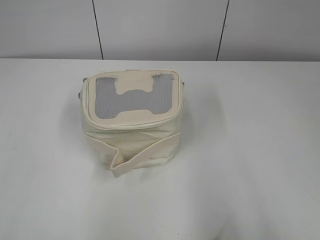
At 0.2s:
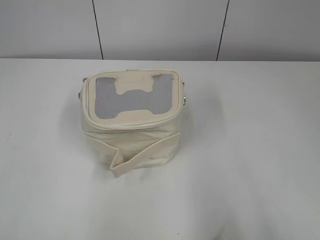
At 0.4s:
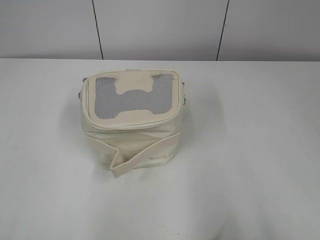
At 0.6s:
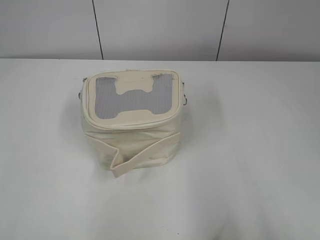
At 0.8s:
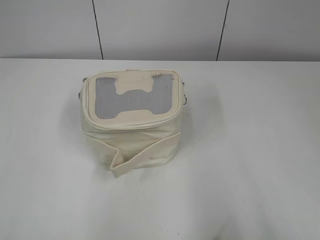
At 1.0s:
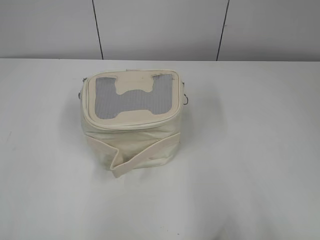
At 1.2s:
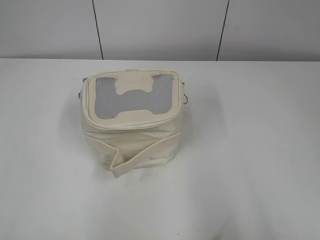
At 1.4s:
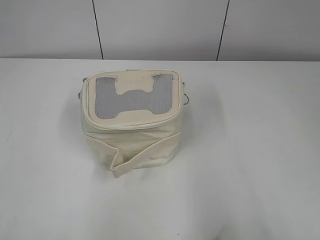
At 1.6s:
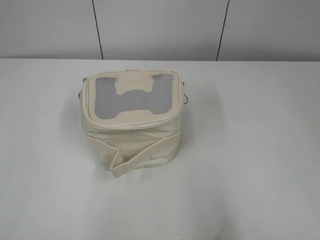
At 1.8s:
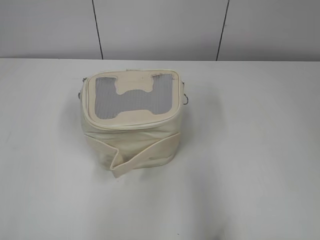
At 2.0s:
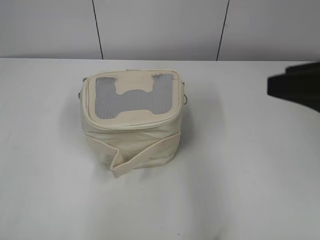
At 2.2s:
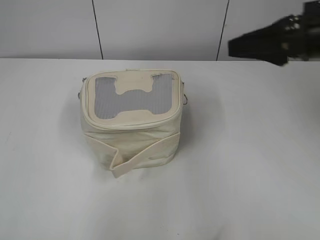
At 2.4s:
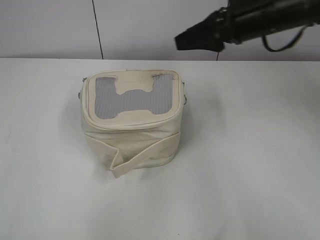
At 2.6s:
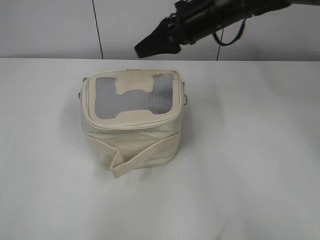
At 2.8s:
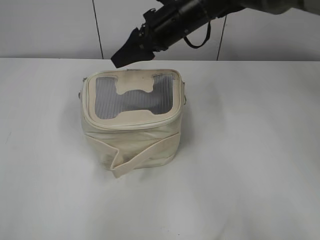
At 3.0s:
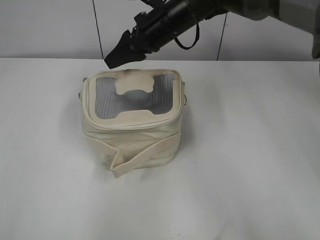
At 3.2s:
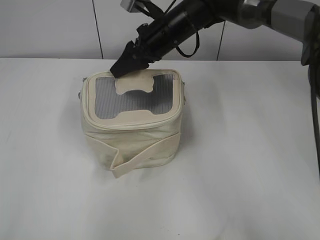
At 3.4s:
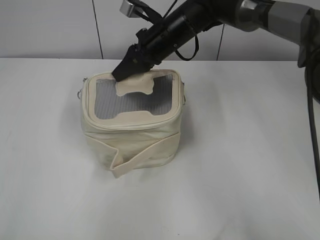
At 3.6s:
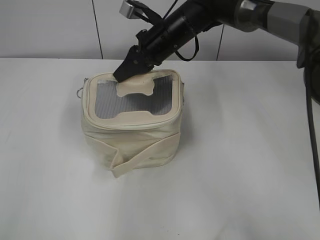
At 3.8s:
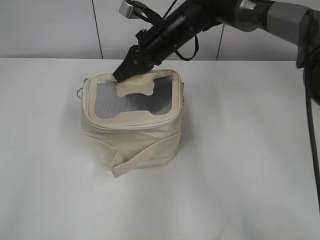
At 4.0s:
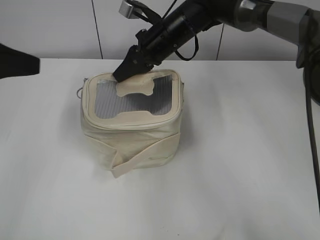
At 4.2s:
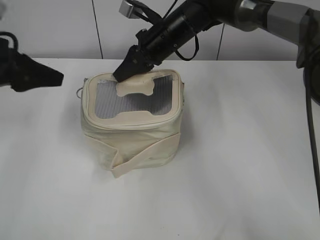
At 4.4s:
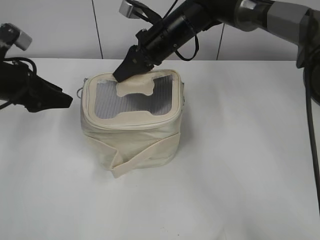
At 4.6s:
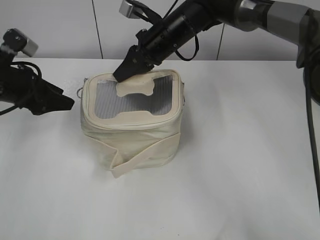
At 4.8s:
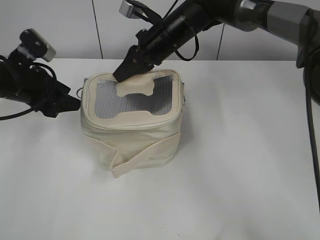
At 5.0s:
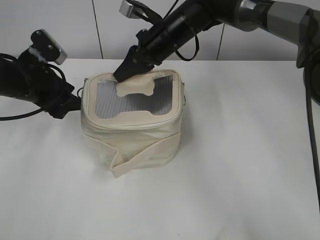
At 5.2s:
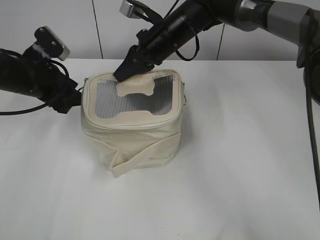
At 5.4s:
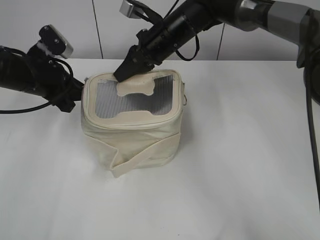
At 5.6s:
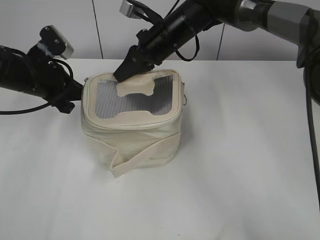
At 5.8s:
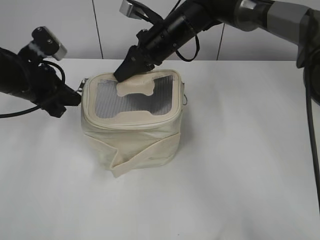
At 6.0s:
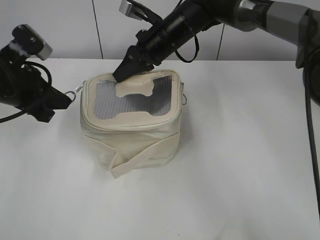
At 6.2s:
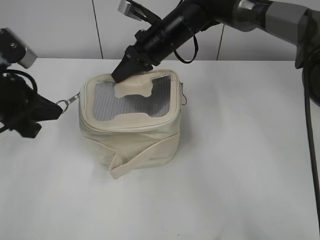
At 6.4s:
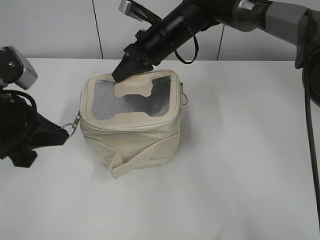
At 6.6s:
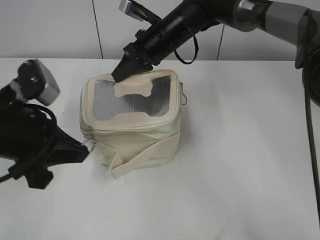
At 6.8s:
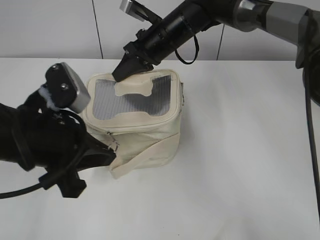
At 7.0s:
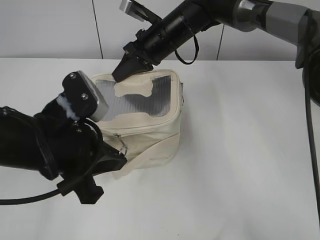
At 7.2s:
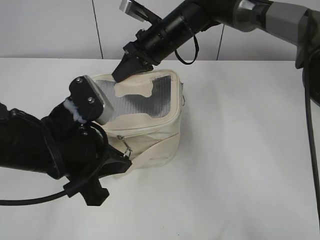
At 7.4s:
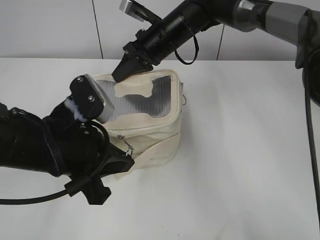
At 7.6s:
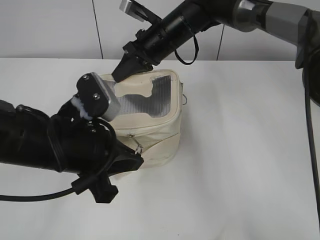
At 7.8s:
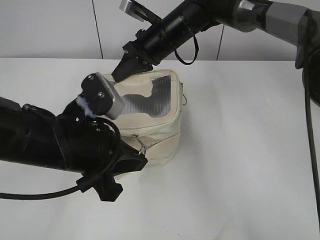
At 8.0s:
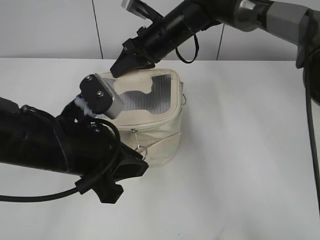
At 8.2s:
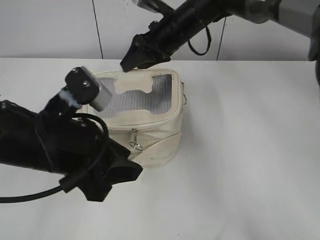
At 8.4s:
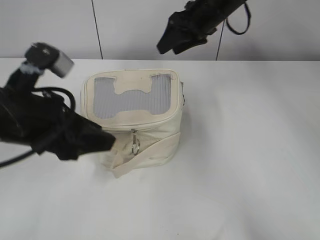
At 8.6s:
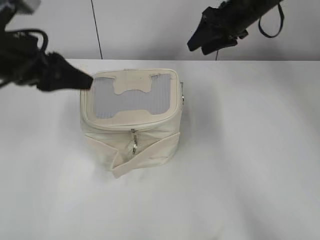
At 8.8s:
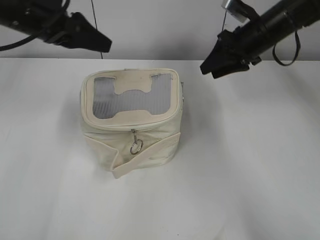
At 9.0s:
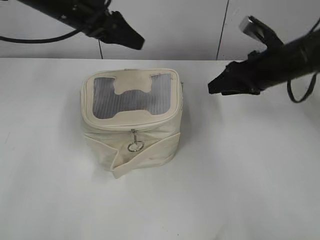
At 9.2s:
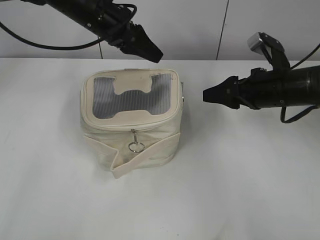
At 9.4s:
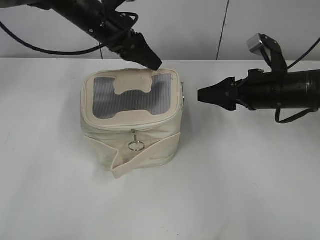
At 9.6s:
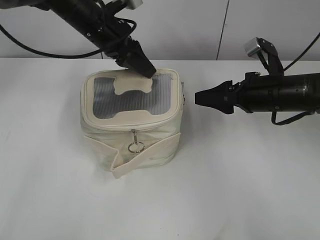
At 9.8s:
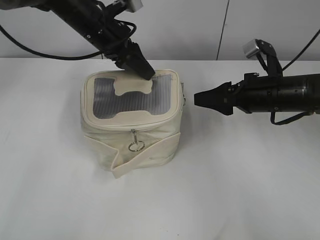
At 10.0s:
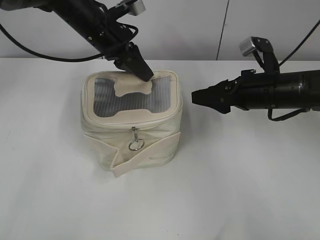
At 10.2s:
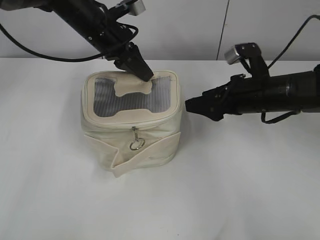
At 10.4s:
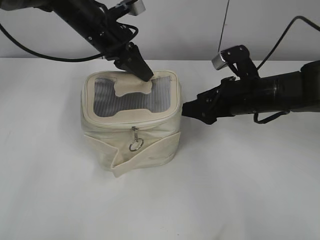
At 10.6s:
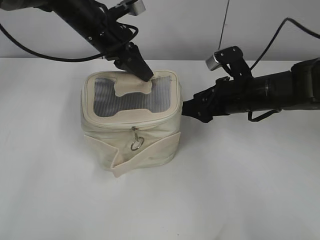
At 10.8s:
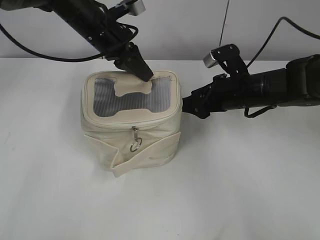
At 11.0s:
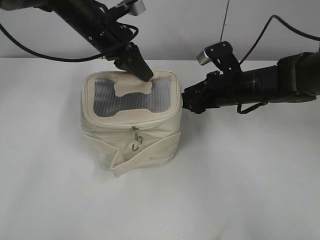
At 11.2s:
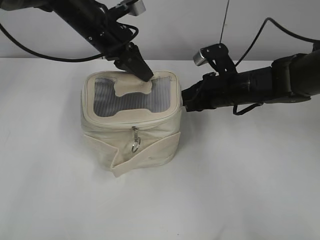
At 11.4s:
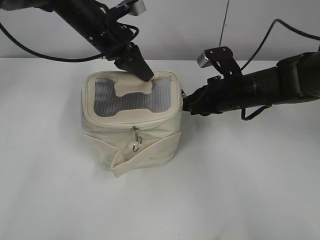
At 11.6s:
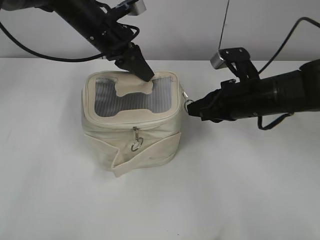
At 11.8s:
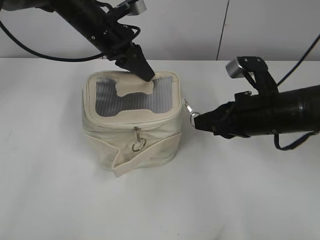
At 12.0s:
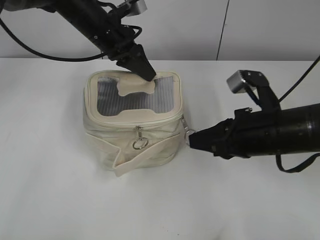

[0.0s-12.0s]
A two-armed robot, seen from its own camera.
Step, 0.0s to 8.0s: Zip up the bag with your left hand.
1.6s to 3.0s: The right gripper goes about 50 cm forward and to the left.
3.0s to 4.4s: The right gripper closes up; the left gripper is displaced forward by some 30 cm.
4.4s to 6.0s: The left gripper closes.
6.0s to 7.6s: The left gripper shifts approximately 15 cm backward and to the right.
7.6s to 9.0s: The left gripper moves forward and upward, about 20 cm, and opens, while the right gripper moves to the right, approximately 20 cm, and opens its fingers.
9.0s to 10.4s: The right gripper travels backward and downward by approximately 10 cm. The left gripper goes some 5 cm to the right and downward, and closes its fingers.
10.4s to 12.0s: The right gripper heads backward, covering approximately 10 cm, and closes its fingers.

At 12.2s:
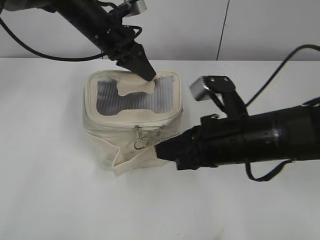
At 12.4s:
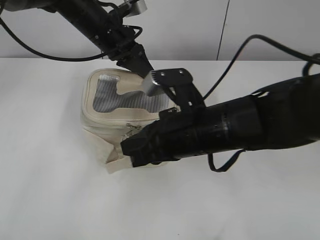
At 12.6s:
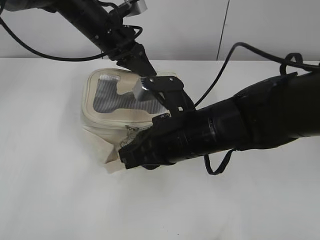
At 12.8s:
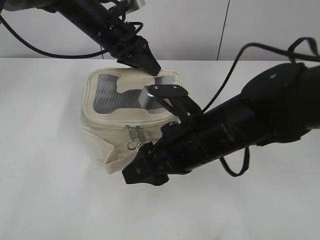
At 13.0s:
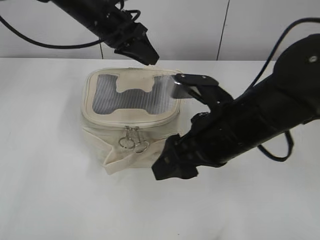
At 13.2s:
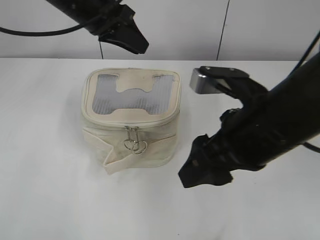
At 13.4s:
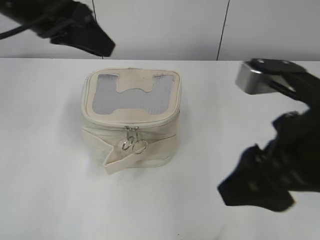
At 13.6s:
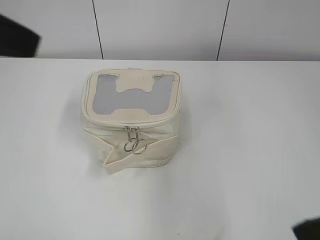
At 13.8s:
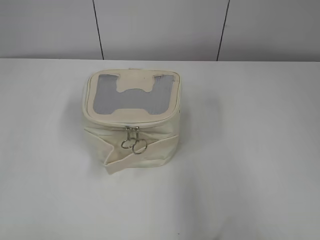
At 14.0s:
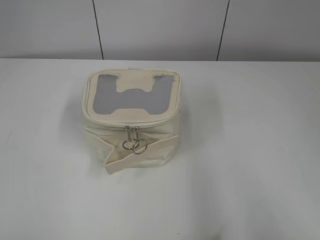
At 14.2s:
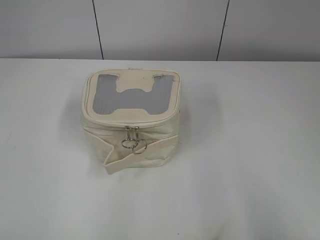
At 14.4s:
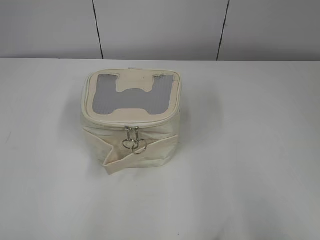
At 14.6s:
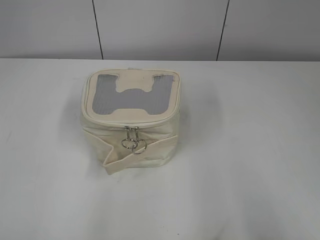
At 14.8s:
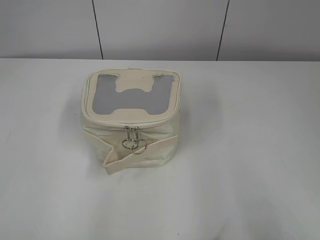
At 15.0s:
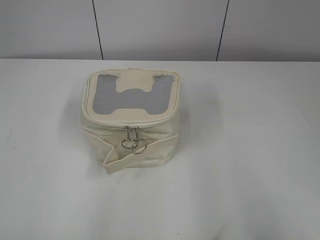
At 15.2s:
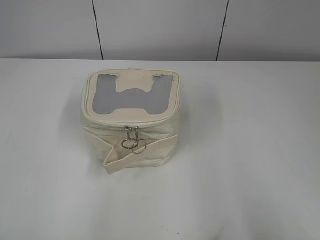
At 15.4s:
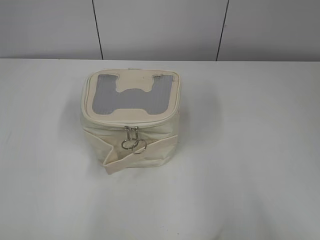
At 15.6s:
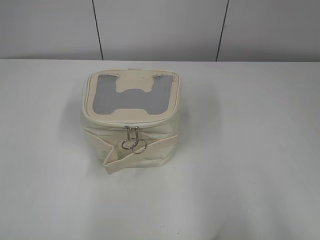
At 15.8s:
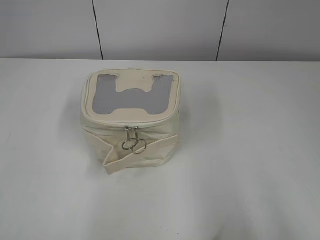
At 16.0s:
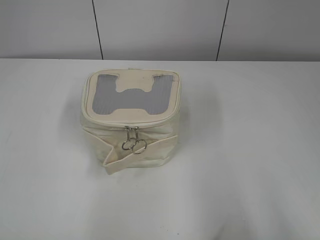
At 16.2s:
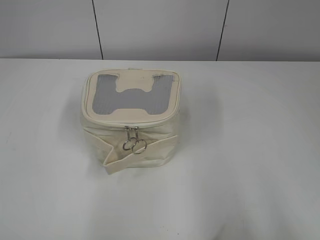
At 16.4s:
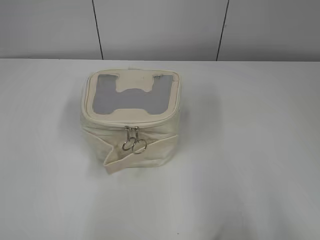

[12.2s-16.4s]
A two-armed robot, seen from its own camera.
12.2s to 13.6s: The left gripper shifts about 30 cm backward, upward and to the left. Meanwhile the right gripper travels upward, backward and to the right by about 15 cm, and opens up.
13.6s to 15.0s: The left gripper shifts approximately 25 cm backward and to the left, and opens up. Meanwhile the right gripper travels to the right and backward by roughly 15 cm.

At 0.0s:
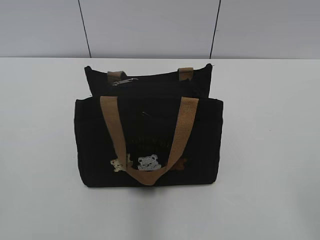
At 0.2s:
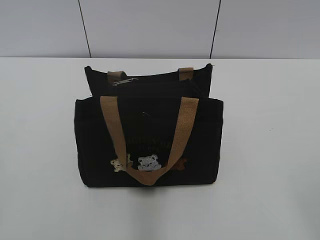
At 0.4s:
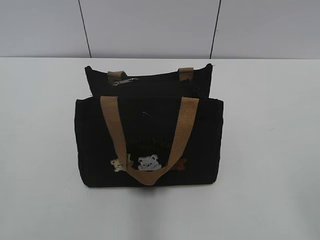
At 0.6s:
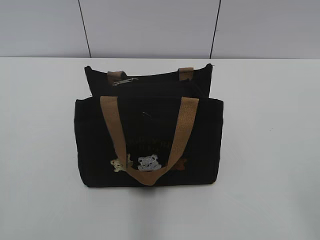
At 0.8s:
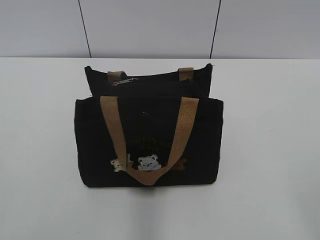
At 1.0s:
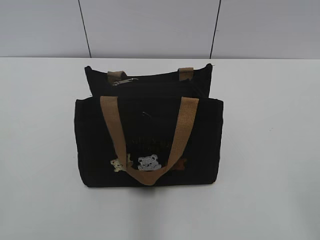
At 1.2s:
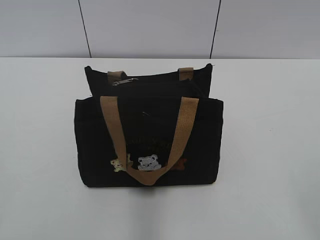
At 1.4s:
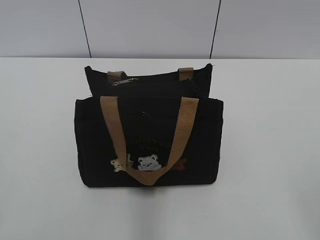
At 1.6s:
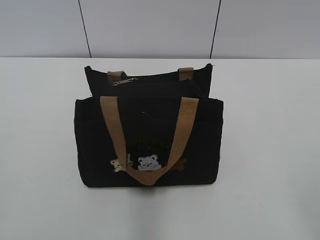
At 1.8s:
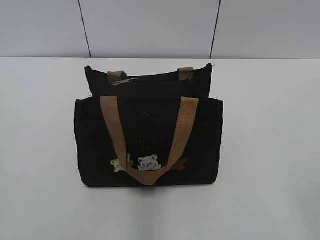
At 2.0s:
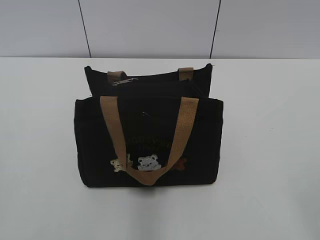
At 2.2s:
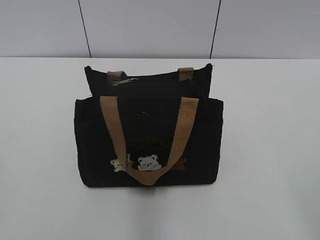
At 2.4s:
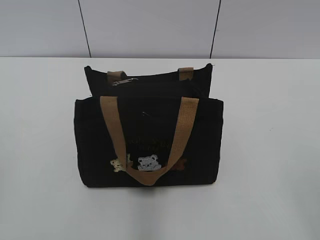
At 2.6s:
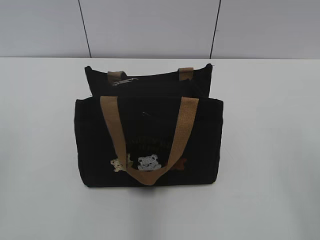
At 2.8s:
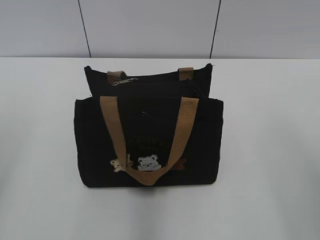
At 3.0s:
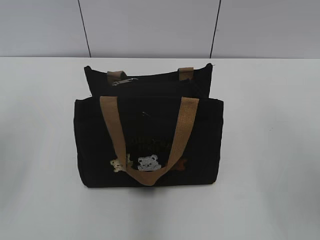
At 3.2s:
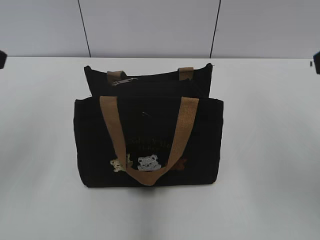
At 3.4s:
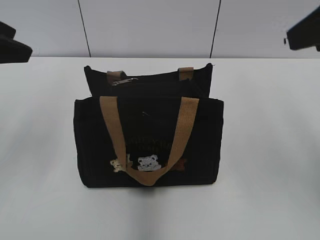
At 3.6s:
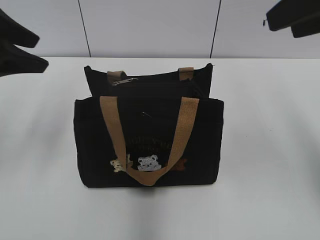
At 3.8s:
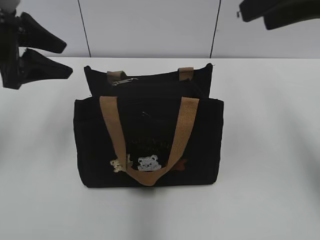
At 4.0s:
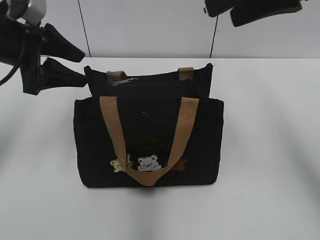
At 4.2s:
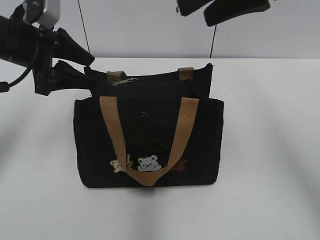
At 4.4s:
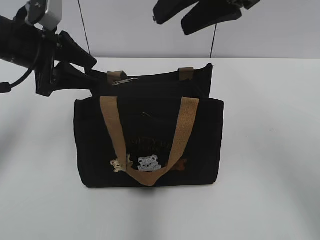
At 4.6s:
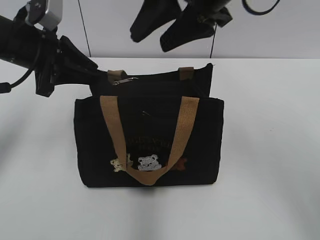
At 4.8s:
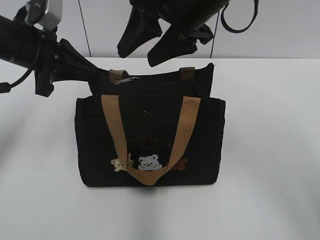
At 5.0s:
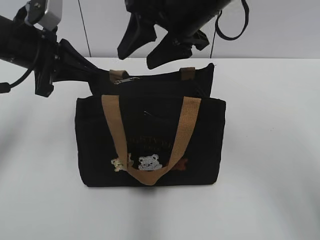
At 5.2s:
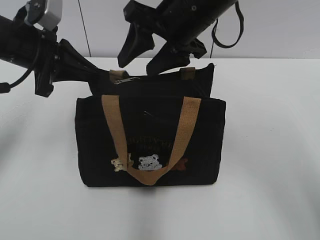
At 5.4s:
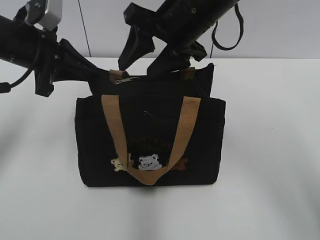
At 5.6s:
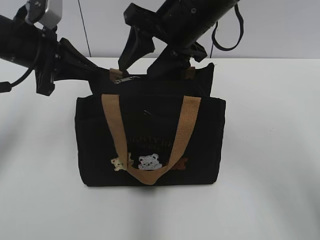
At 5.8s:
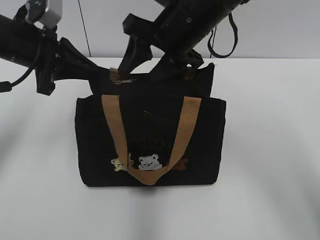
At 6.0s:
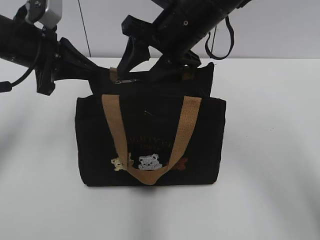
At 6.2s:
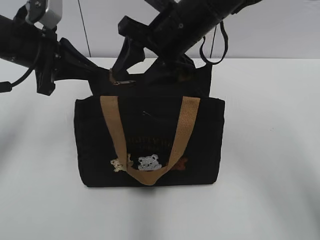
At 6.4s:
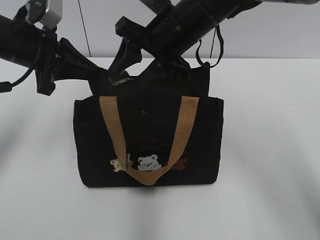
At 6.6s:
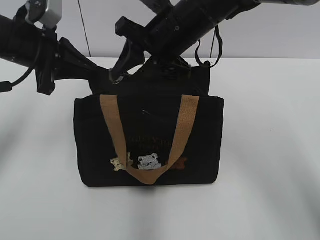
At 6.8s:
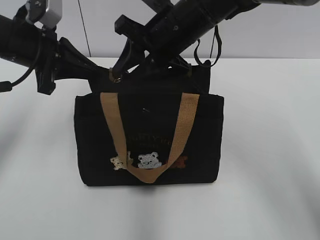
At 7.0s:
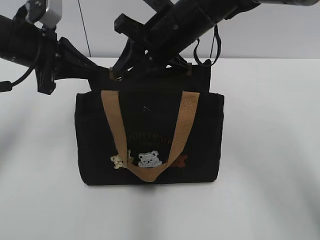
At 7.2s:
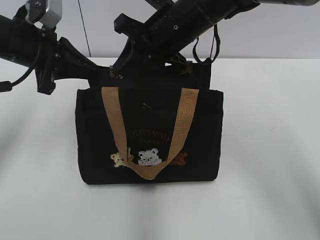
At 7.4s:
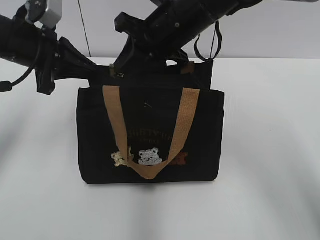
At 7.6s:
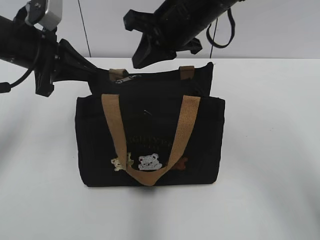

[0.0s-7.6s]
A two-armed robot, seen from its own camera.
1.6s to 3.0s: The left gripper heads forward, covering roughly 15 cm, and opens its fingers.
3.0s to 4.6s: The left gripper moves forward, to the right and downward, some 20 cm, and closes up, while the right gripper travels forward and to the left by roughly 25 cm.
4.6s to 6.0s: The right gripper travels downward by approximately 10 cm; the left gripper closes up.
6.0s to 7.6s: The right gripper closes its fingers.
